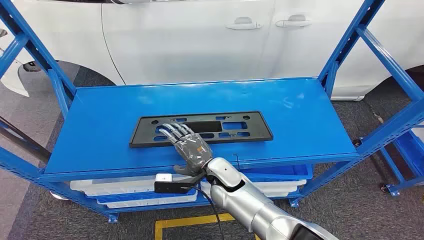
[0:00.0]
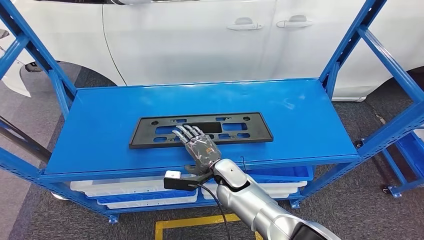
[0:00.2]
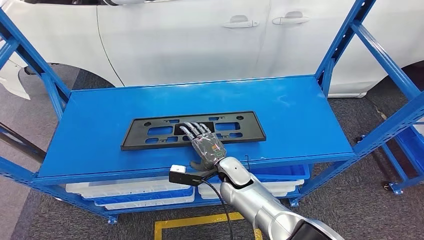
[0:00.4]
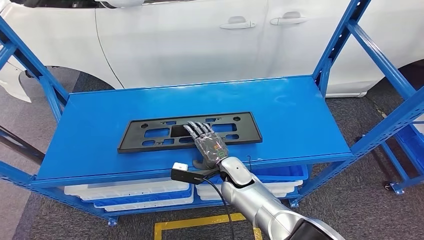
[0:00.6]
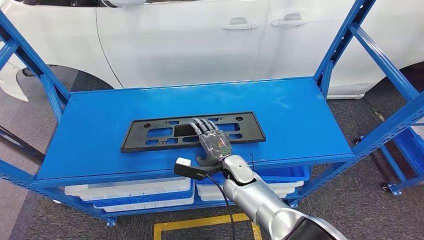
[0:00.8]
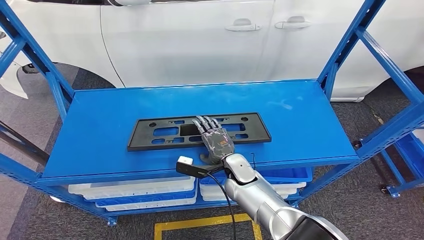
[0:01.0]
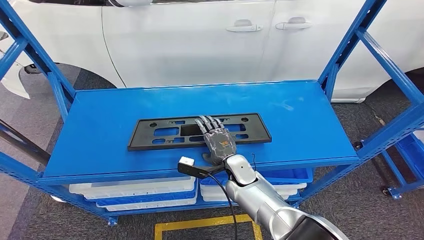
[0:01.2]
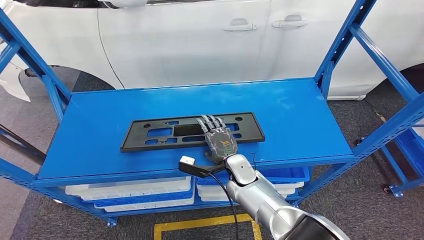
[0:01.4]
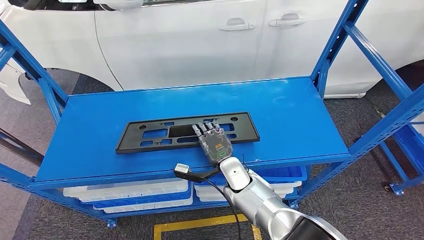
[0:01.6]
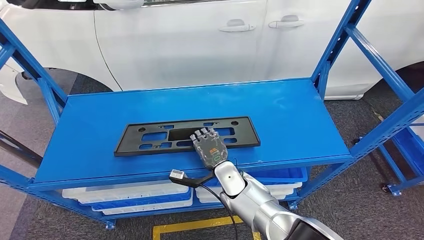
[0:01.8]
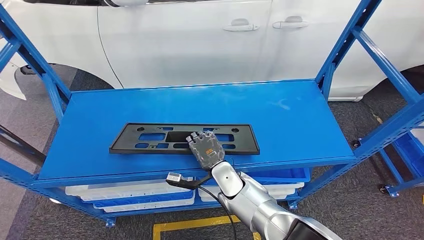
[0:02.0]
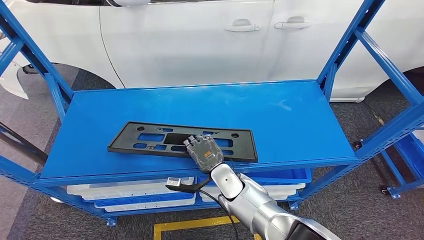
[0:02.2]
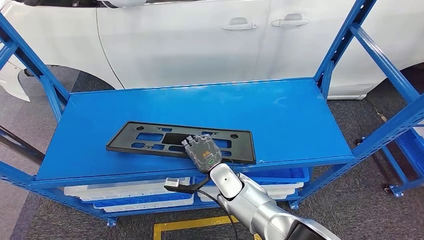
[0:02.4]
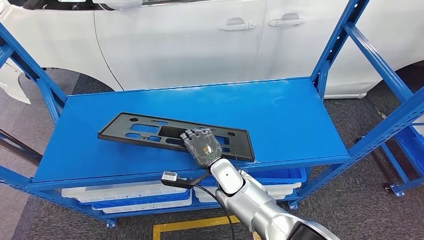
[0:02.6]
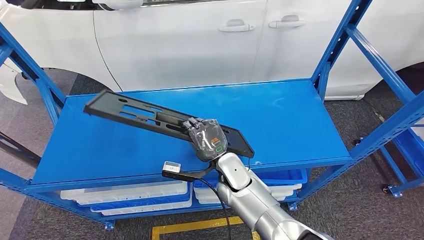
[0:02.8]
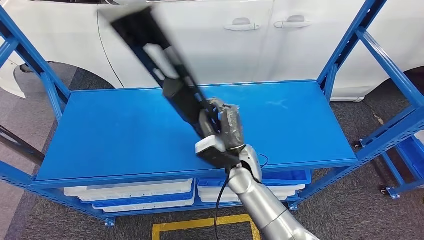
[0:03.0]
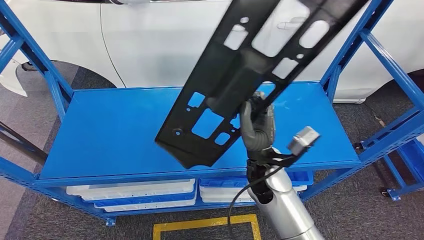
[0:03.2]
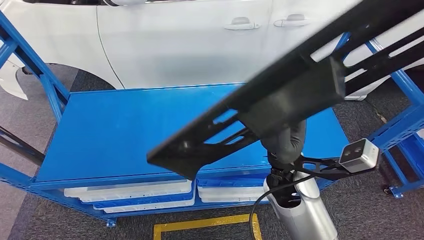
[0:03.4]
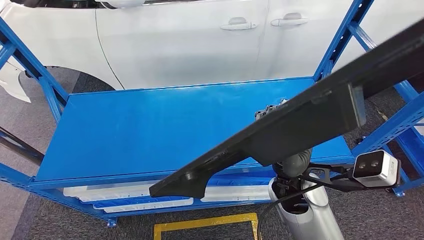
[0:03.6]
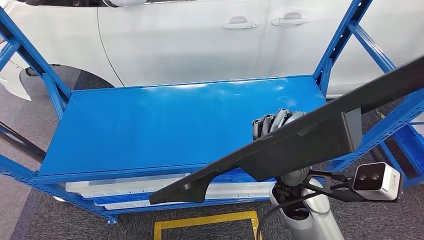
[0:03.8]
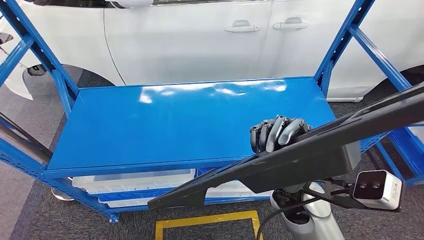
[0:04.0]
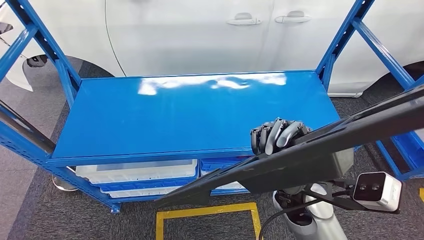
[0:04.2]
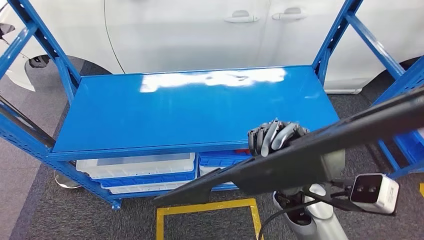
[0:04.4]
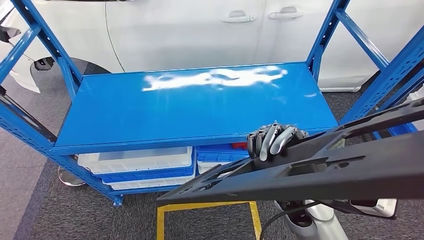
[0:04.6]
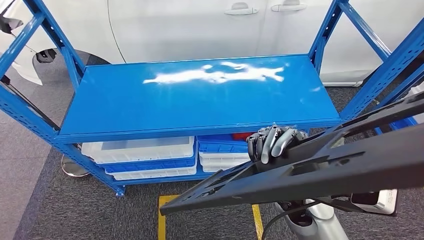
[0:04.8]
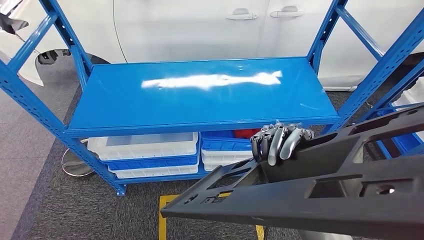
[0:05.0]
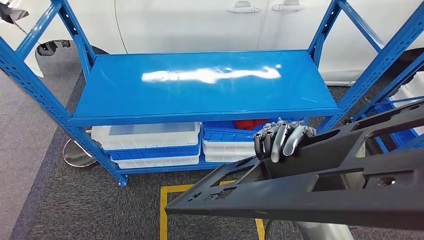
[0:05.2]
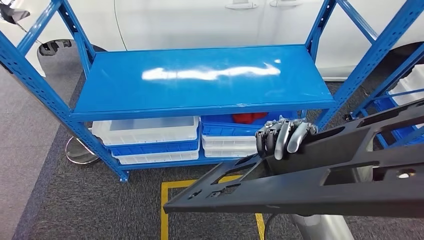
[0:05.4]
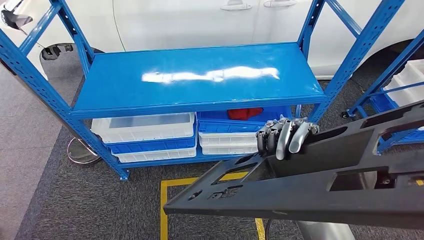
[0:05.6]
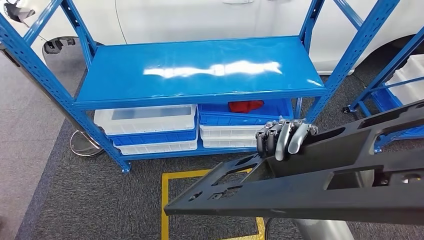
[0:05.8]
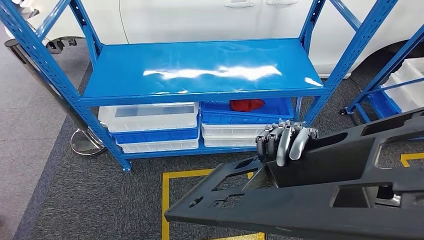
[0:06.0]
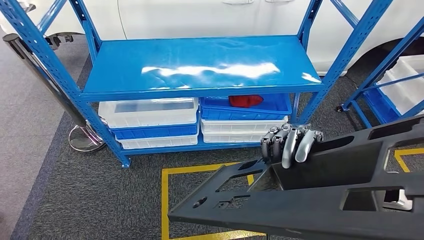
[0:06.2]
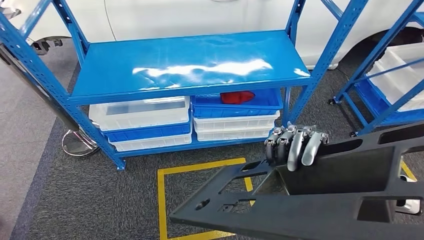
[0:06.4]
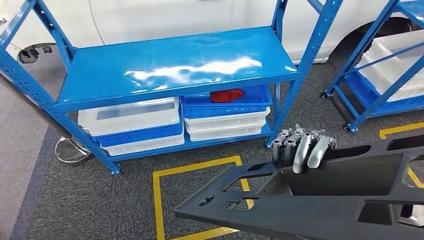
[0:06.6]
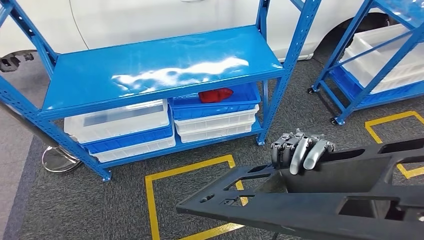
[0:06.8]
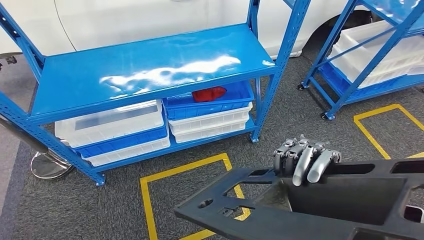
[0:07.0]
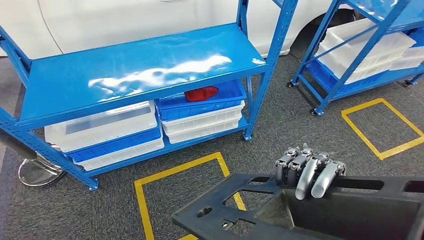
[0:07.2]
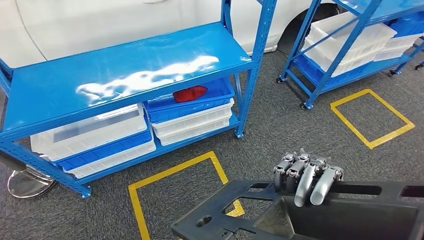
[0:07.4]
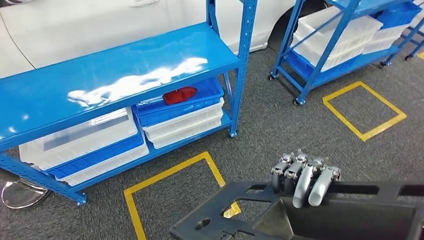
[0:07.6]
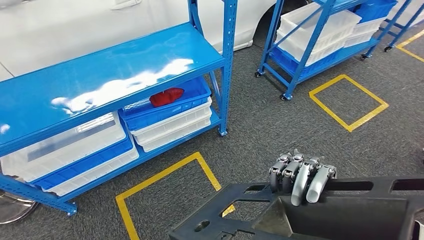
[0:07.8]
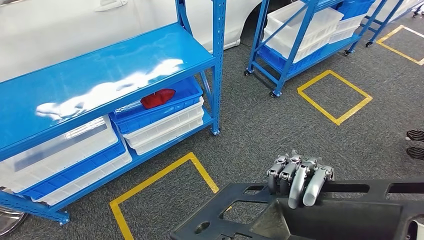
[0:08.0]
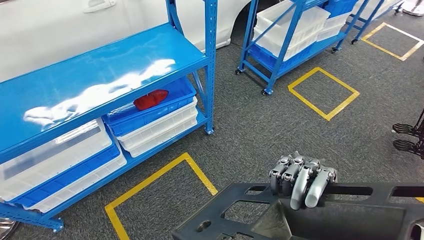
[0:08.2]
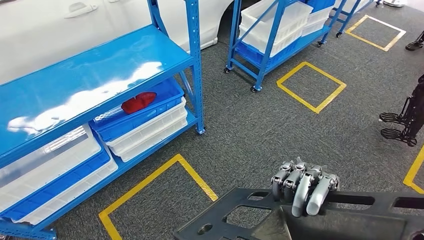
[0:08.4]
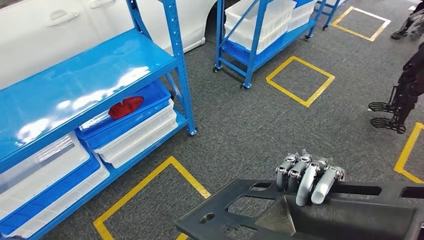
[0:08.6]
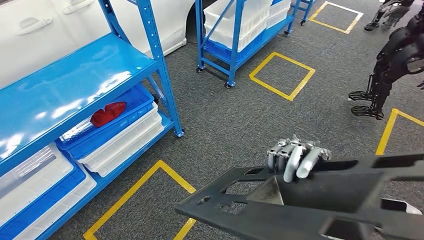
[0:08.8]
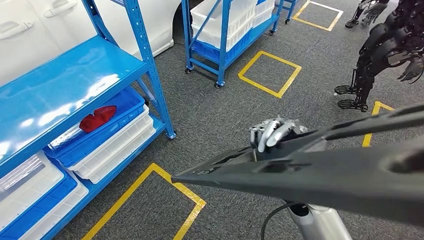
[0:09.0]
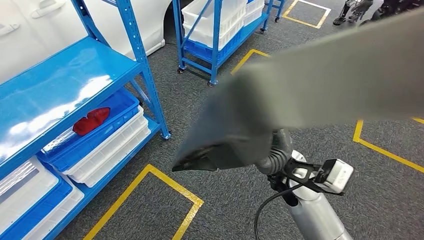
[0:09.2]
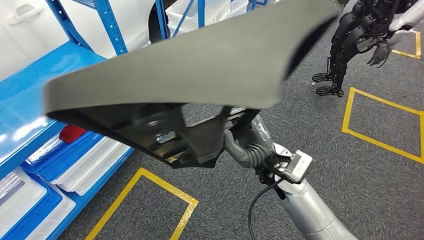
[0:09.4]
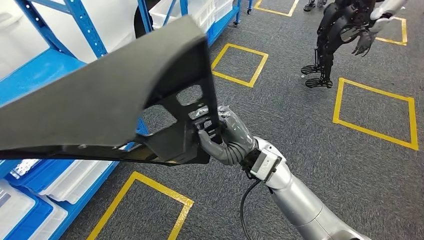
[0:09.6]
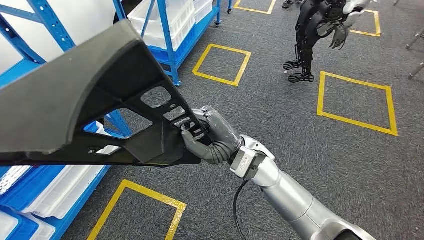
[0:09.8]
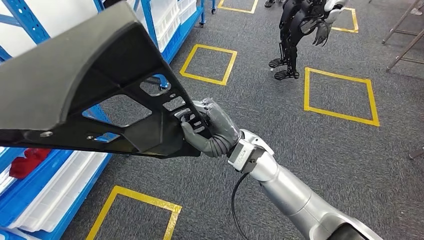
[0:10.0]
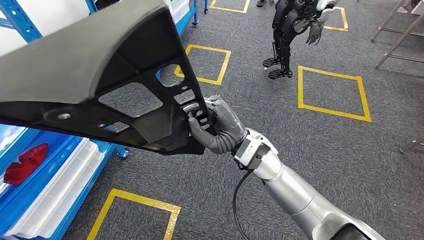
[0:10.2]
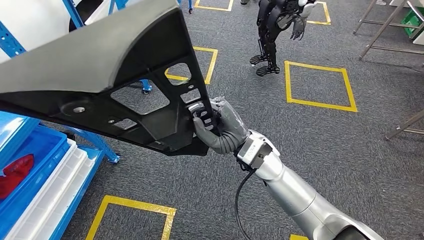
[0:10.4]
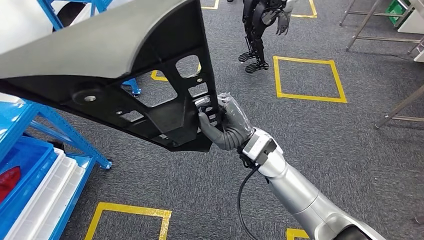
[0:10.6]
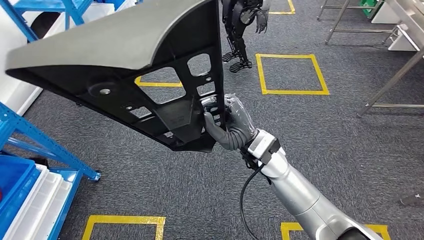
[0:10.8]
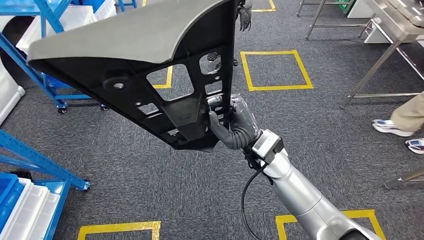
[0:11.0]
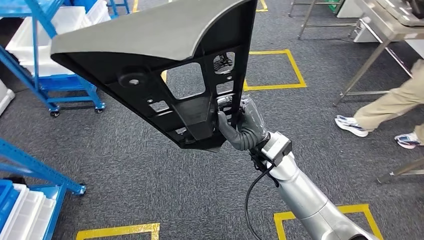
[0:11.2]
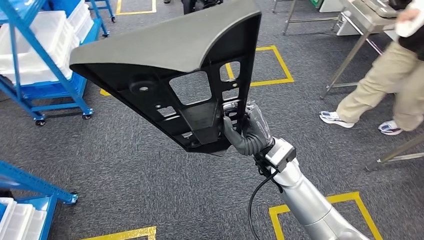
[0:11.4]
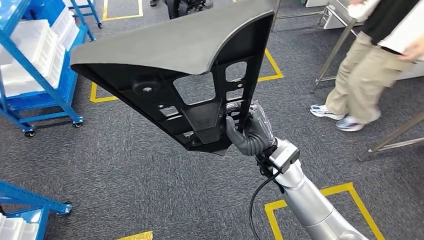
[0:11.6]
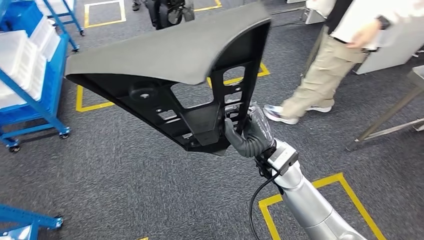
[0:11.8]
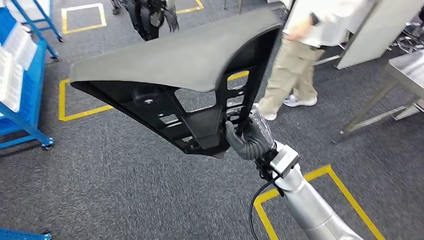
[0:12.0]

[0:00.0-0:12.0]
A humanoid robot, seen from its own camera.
Step, 0:00.0 to 0:04.0: Pick up the small component from the shelf.

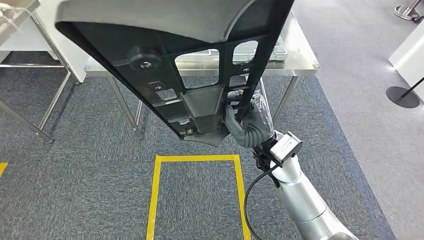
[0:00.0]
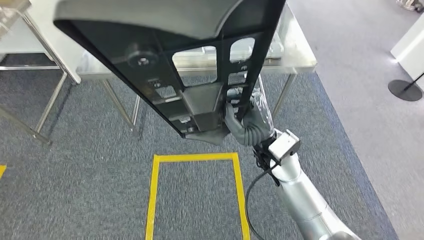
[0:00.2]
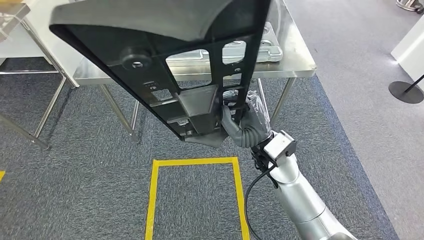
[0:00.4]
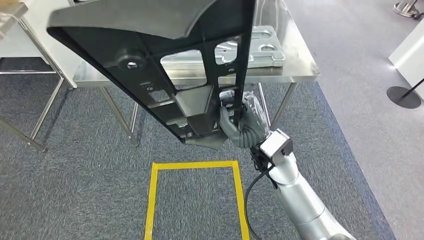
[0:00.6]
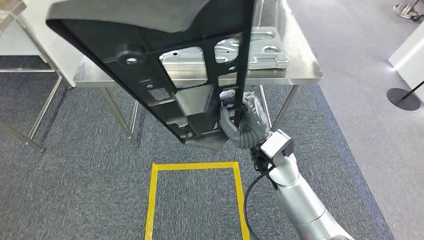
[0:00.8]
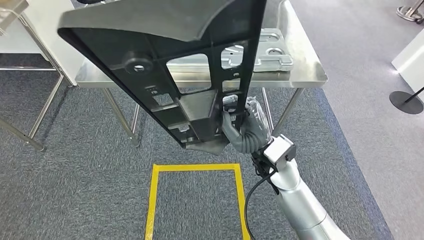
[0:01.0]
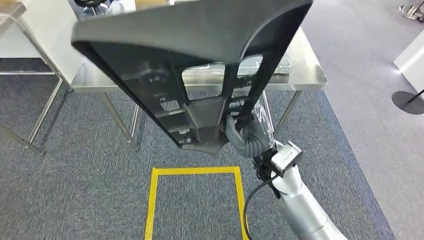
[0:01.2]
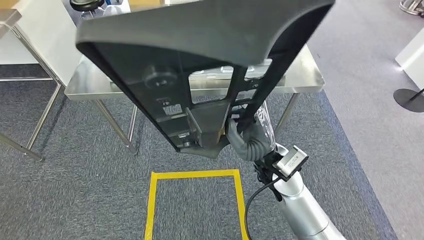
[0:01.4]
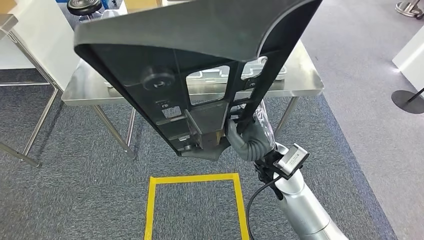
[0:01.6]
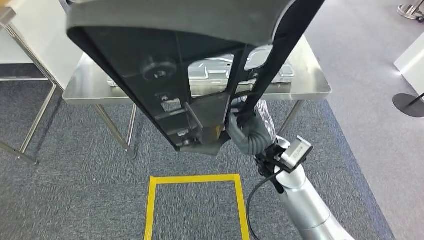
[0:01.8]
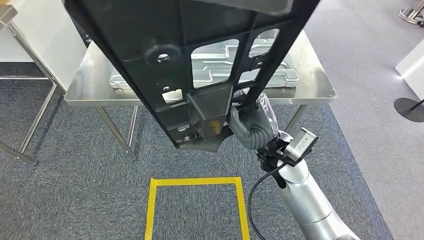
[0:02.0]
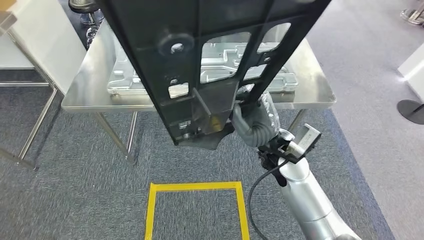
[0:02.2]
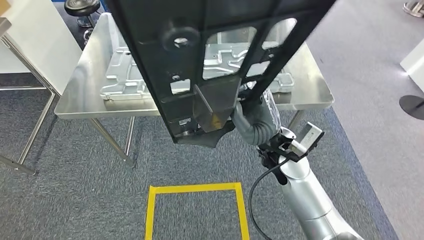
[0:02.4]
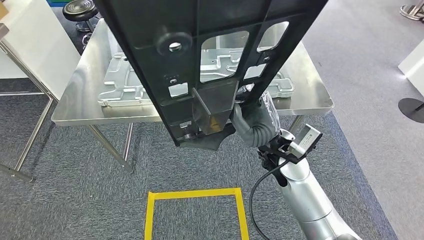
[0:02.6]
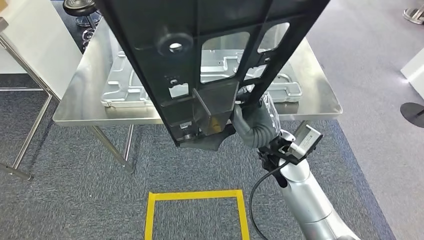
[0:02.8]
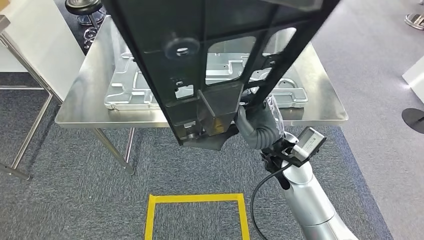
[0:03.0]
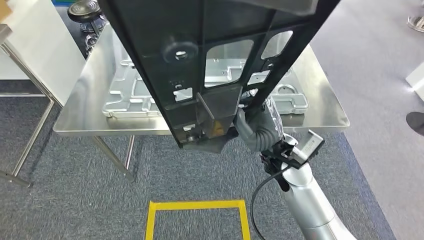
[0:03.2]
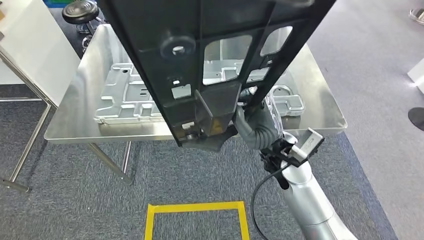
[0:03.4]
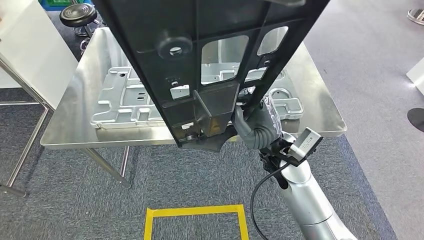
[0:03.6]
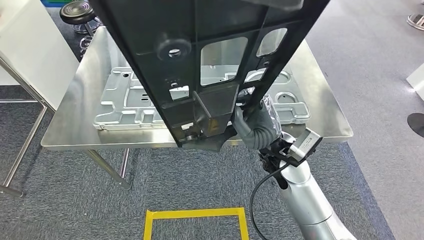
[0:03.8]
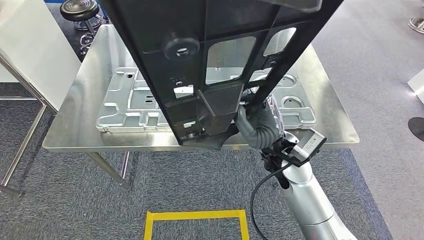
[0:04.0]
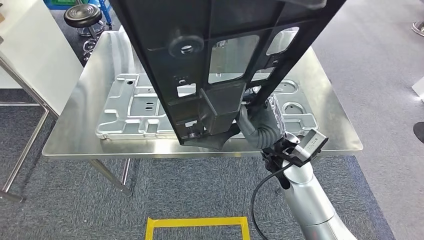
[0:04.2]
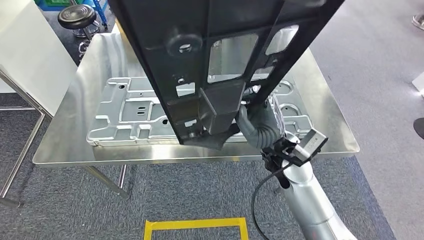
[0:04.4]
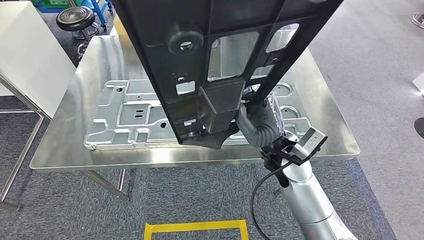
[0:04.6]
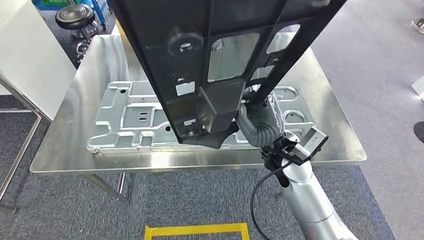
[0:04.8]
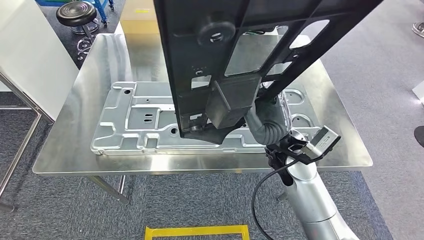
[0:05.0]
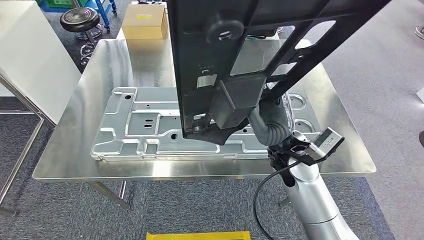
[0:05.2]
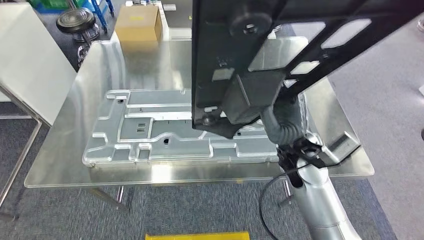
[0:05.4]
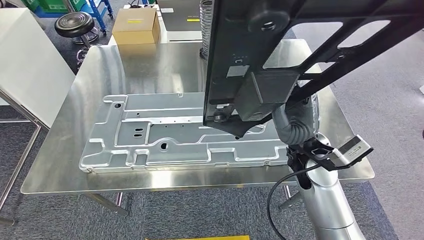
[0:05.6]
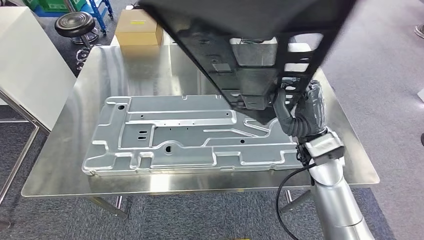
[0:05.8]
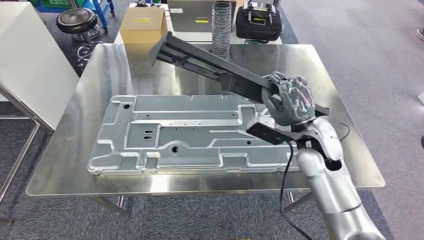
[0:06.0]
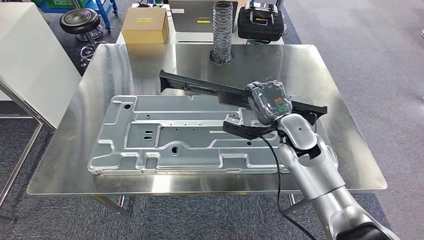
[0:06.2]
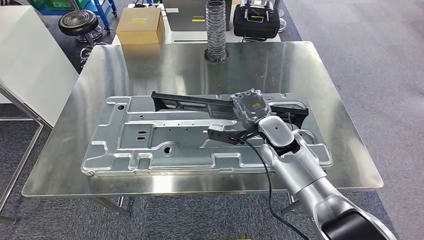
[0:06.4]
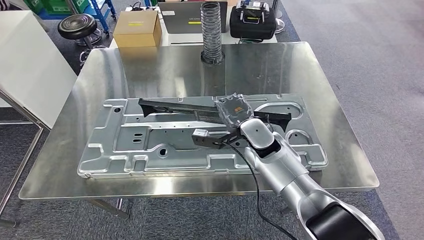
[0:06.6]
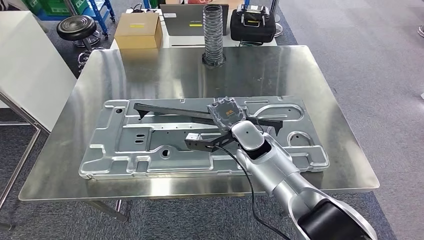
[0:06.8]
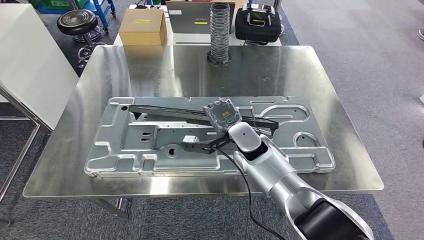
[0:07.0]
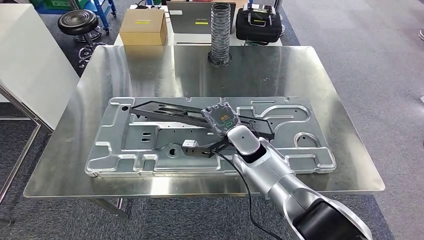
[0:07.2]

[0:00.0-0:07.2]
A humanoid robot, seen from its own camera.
Step, 0:00.0 to 0:03.8: Move the small component to the workbench.
